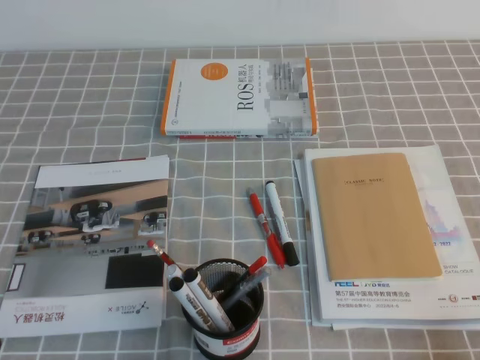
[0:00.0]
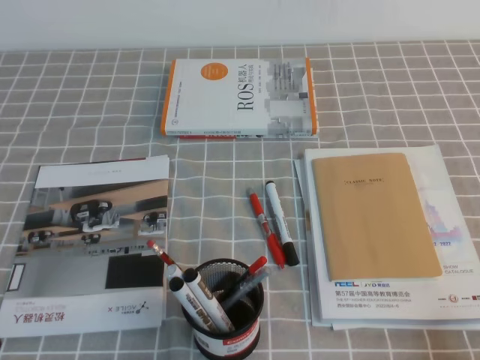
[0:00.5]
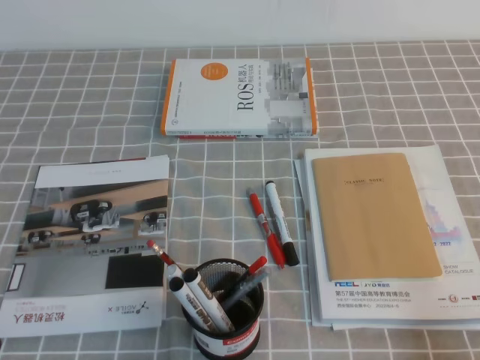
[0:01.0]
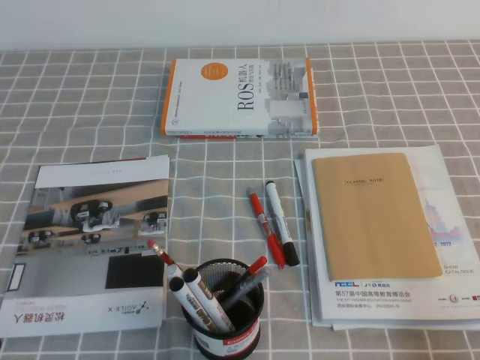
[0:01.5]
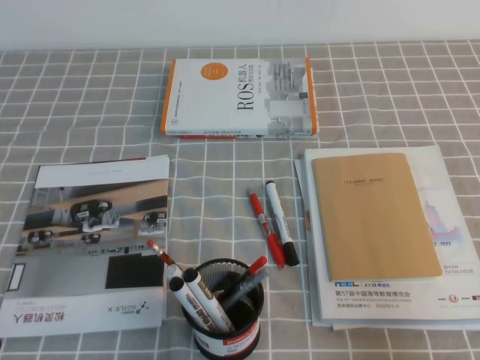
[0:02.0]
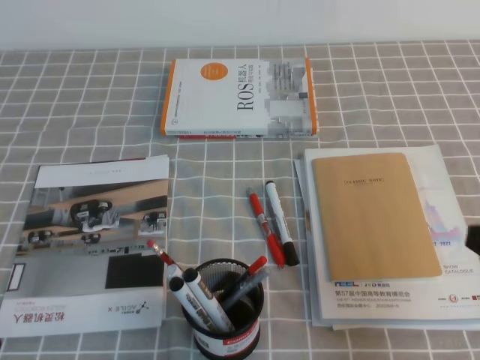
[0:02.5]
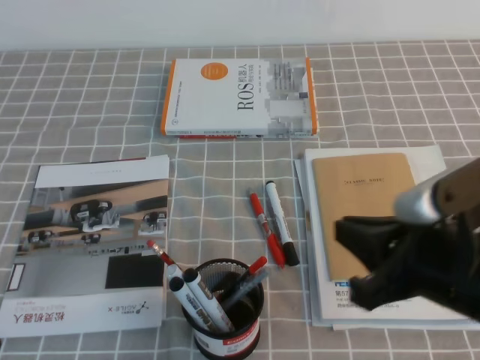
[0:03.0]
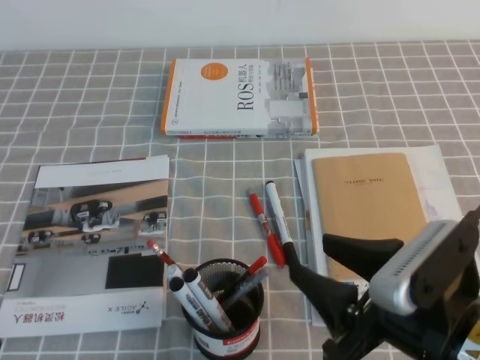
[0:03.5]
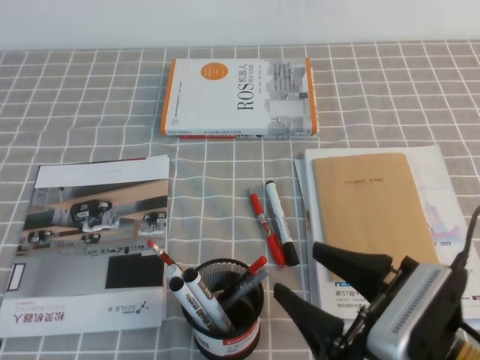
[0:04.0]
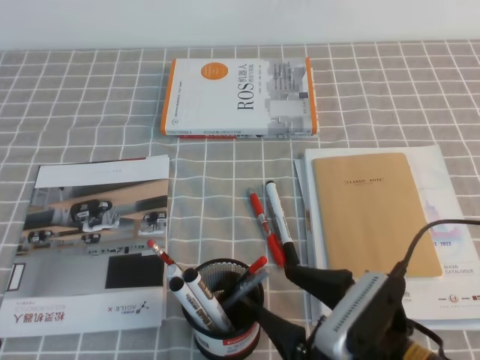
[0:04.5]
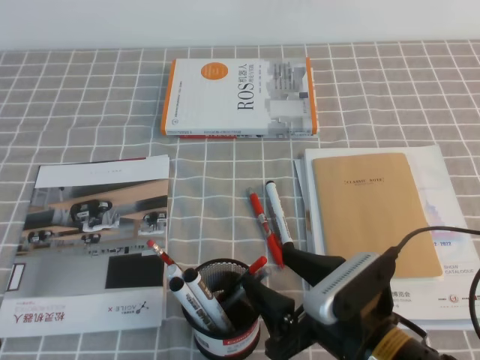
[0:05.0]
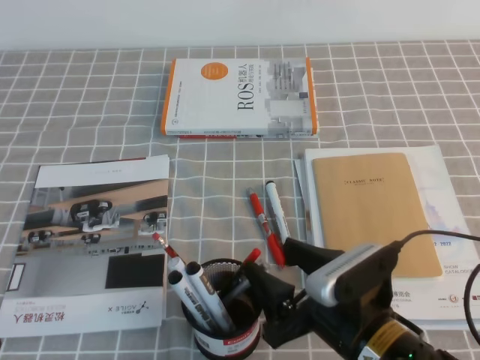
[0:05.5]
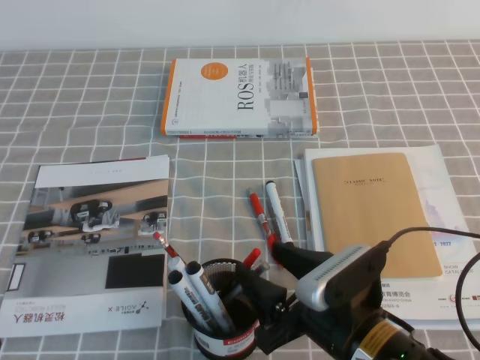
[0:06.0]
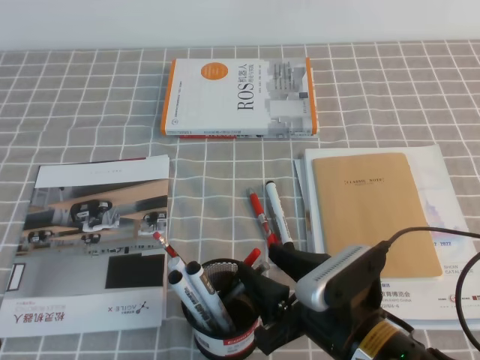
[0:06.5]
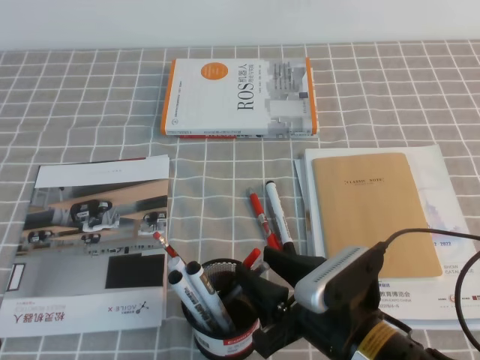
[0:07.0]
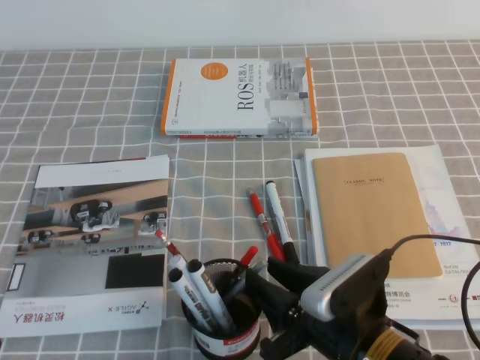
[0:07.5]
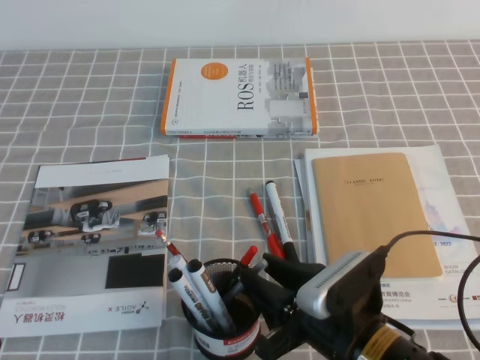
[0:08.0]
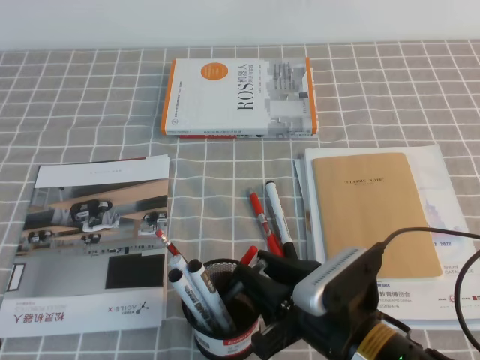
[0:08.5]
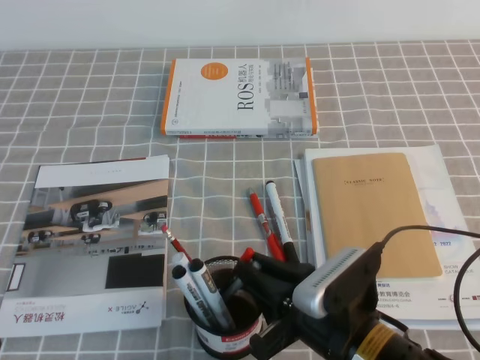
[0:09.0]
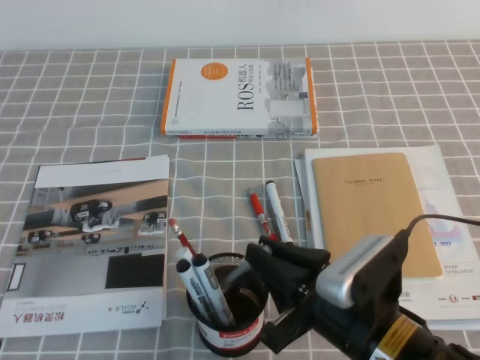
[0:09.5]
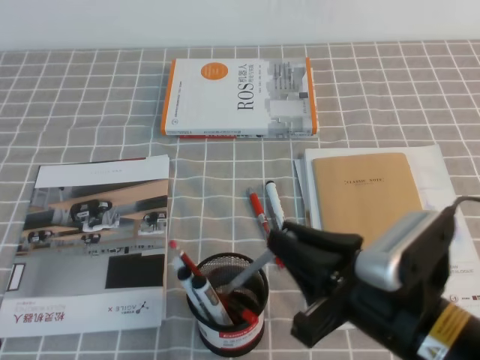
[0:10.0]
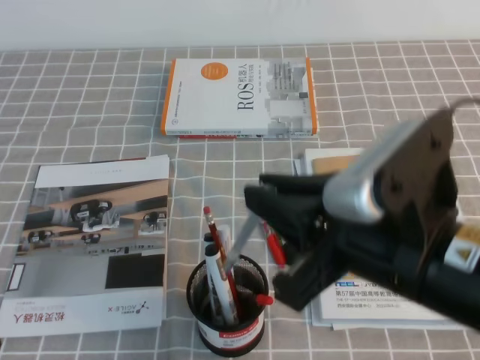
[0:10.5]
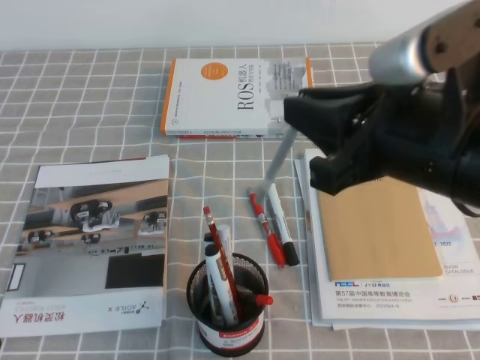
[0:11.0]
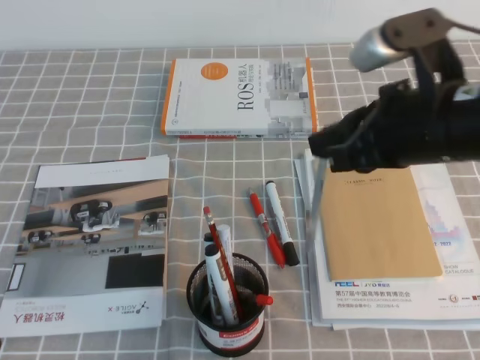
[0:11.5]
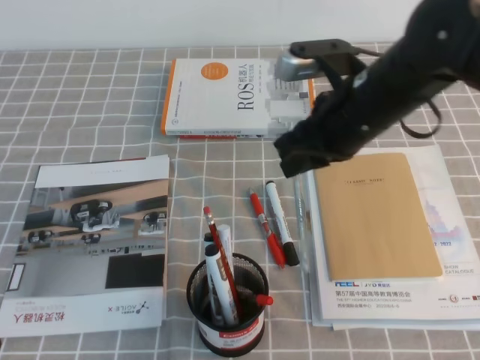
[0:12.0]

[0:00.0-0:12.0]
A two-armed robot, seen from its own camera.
0:00.0 to 0:02.0: The right gripper moves upward, about 10 cm.
0:02.0 to 0:04.0: The right gripper moves to the left, some 15 cm, and opens up.
0:04.0 to 0:06.0: The right gripper shifts by approximately 5 cm.
0:06.0 to 0:08.0: The right gripper closes up.
0:08.0 to 0:10.0: The right gripper travels upward by about 10 cm, and closes up.
0:10.0 to 0:12.0: The right gripper moves forward, some 20 cm.

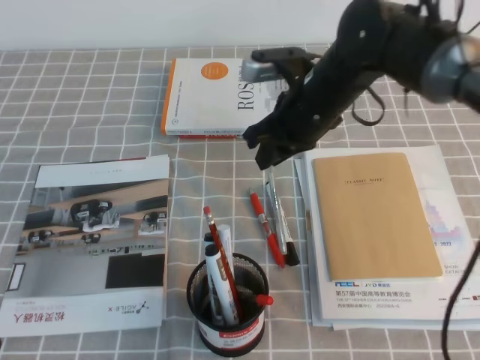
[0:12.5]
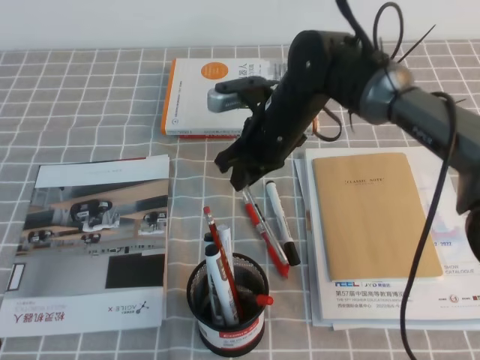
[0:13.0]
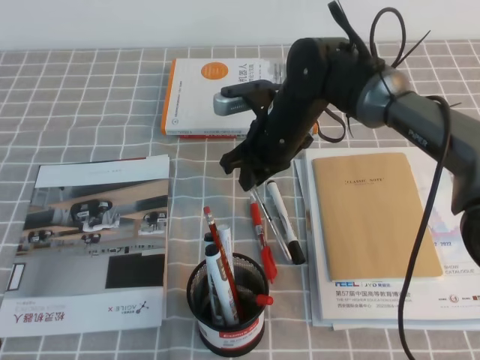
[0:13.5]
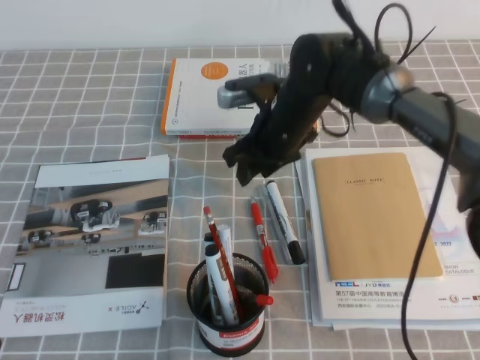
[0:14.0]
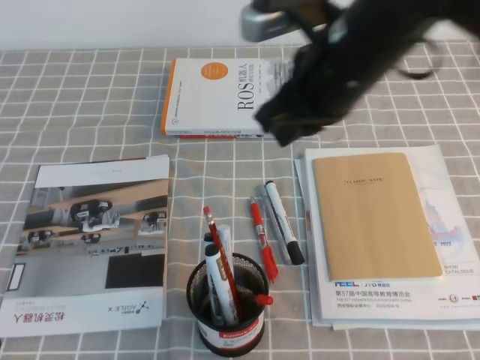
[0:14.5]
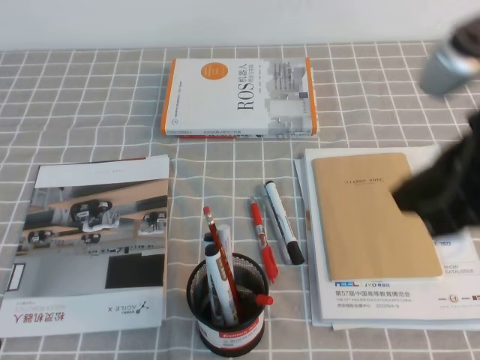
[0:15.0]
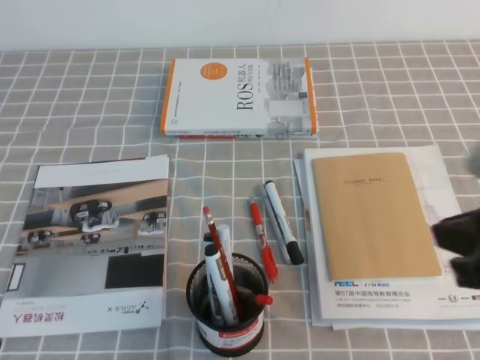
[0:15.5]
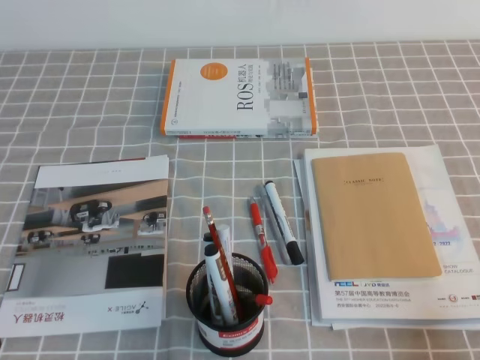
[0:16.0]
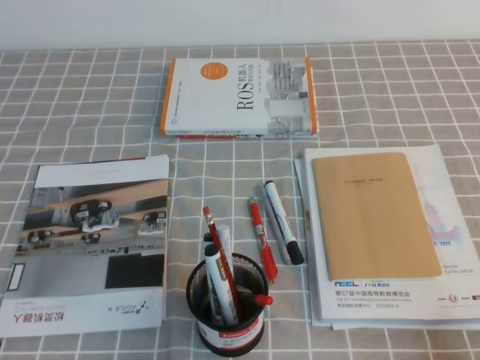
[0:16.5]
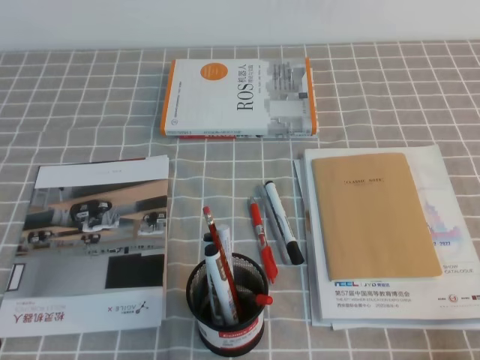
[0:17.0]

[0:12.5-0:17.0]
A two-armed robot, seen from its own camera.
Step, 0:12.5 to 0:17.0: Pick up the pen from the pen holder.
0:12.5 to 0:14.5: The right gripper is displaced upward and backward by approximately 15 cm, and opens, then closes again.
0:14.5 to 0:17.0: The right gripper shifts some 40 cm backward, to the right and downward.

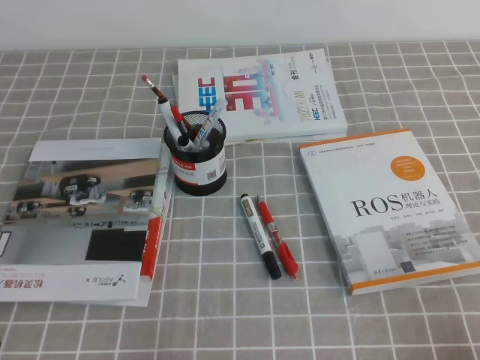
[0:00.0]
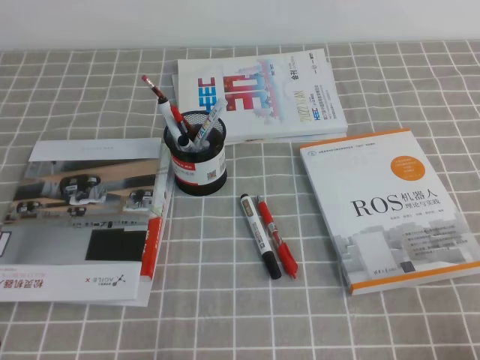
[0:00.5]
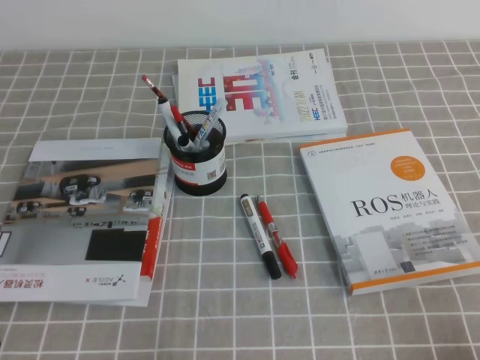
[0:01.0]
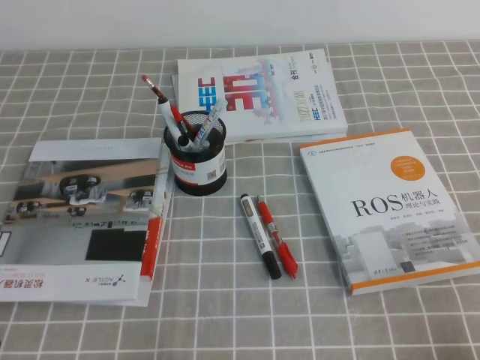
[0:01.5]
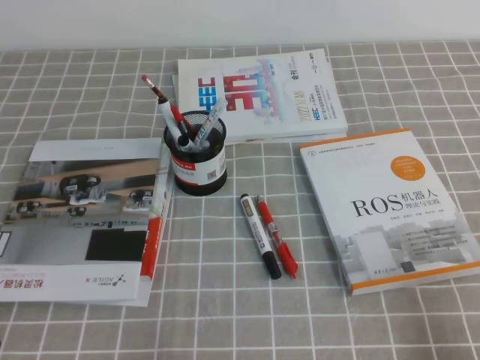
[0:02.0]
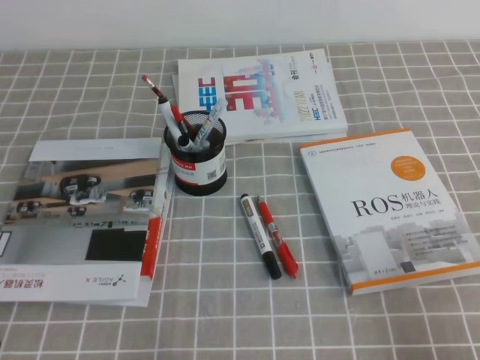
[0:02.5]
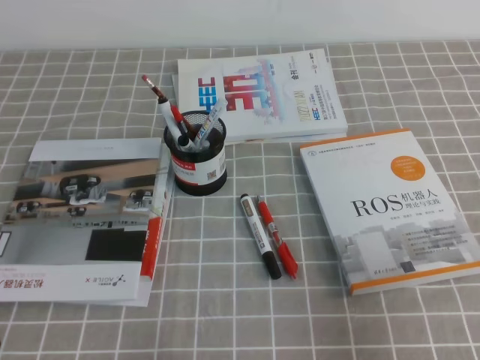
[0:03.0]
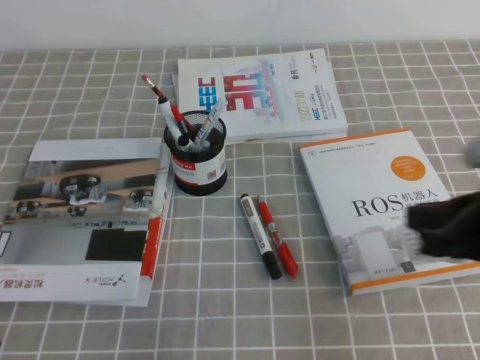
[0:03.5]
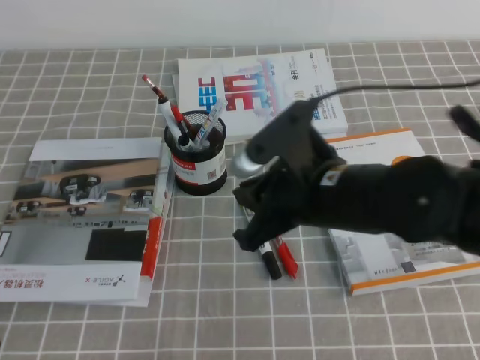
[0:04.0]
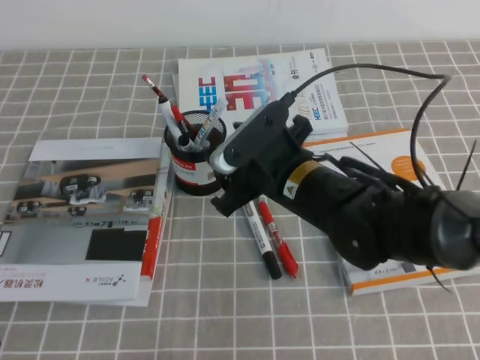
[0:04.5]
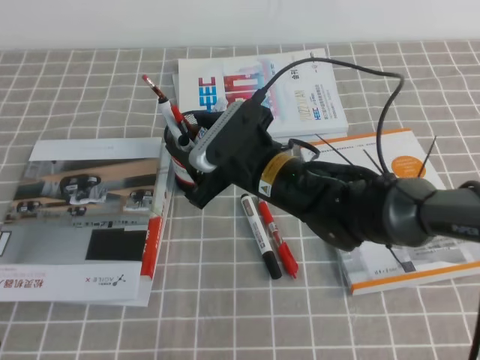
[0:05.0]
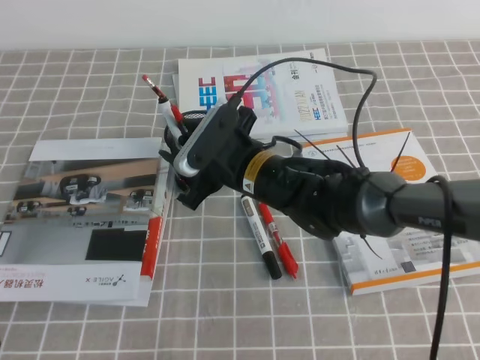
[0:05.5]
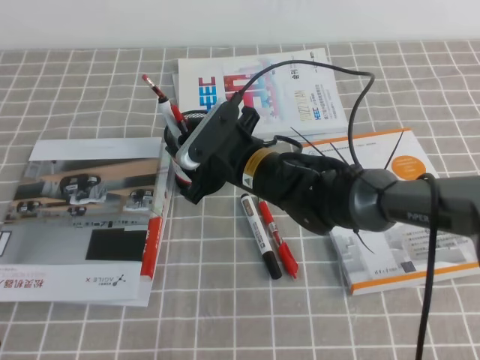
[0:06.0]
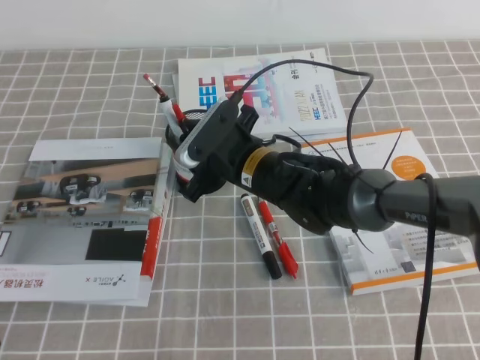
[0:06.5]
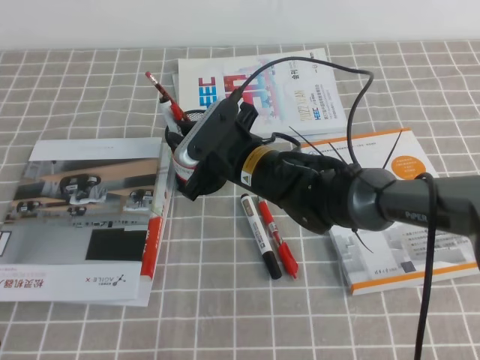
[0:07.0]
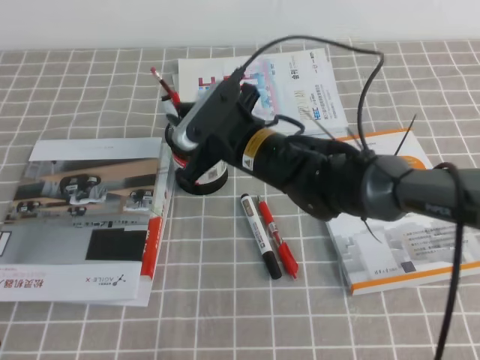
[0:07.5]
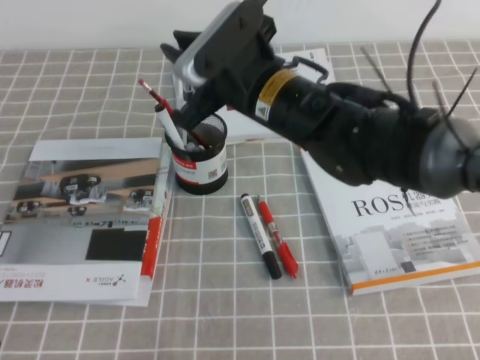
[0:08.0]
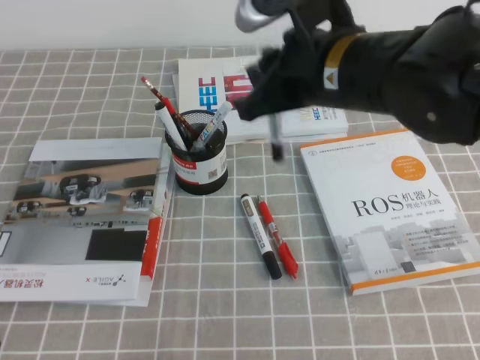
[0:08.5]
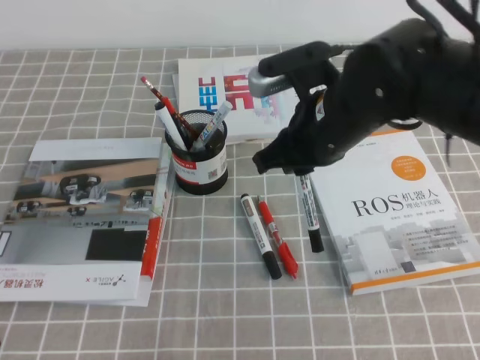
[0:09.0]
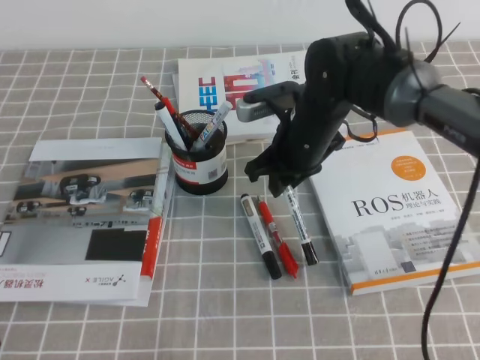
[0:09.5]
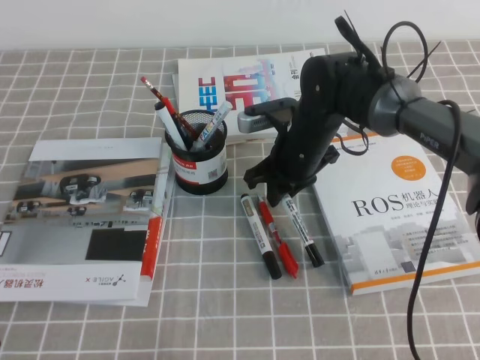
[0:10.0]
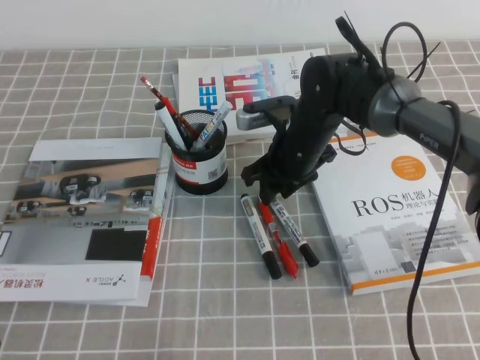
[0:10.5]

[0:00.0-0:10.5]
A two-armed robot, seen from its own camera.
0:02.0 to 0:04.0: The right gripper goes about 30 cm to the left and forward.
0:04.0 to 0:06.5: The right gripper shifts roughly 15 cm forward, to the left and downward, and opens.
0:06.5 to 0:08.5: The right gripper goes roughly 20 cm upward and to the right, and closes.
0:08.5 to 0:10.5: The right gripper travels downward and forward by approximately 20 cm.
